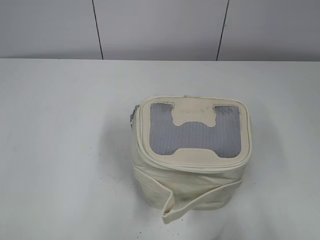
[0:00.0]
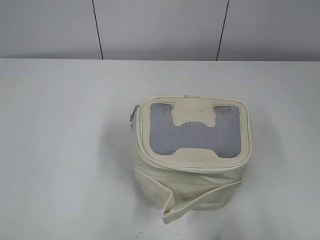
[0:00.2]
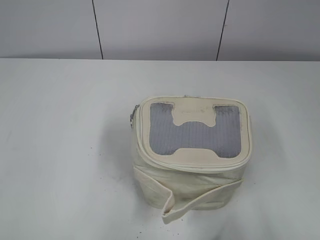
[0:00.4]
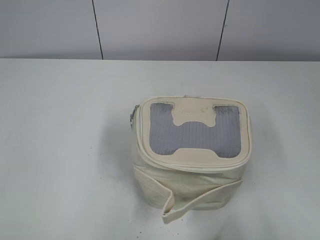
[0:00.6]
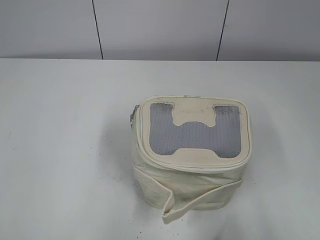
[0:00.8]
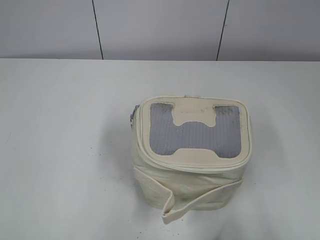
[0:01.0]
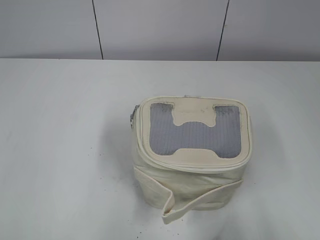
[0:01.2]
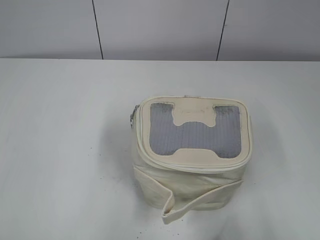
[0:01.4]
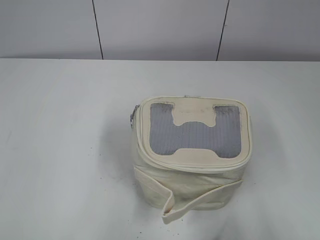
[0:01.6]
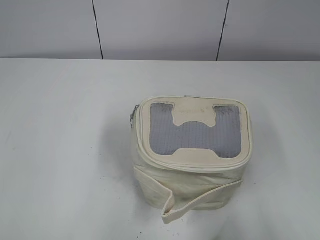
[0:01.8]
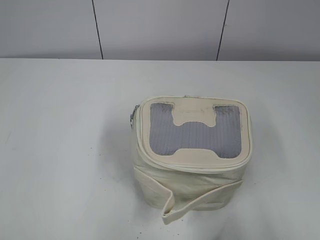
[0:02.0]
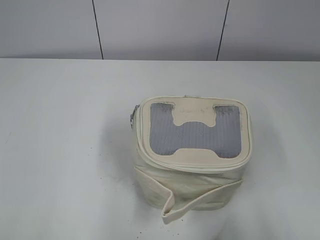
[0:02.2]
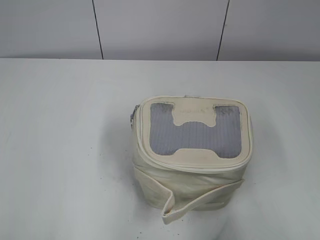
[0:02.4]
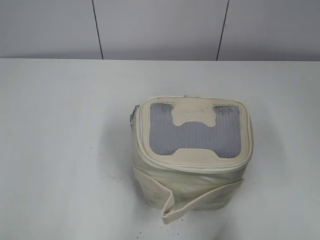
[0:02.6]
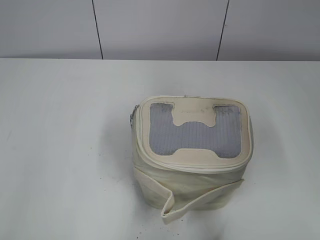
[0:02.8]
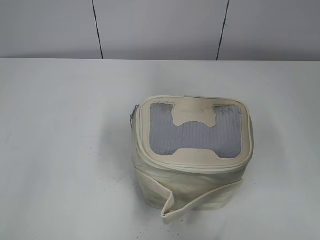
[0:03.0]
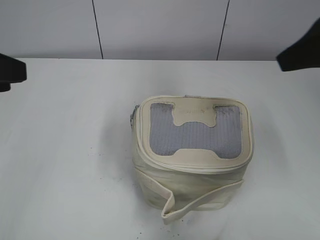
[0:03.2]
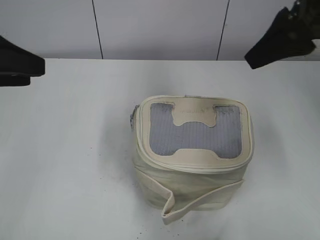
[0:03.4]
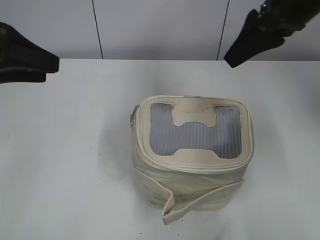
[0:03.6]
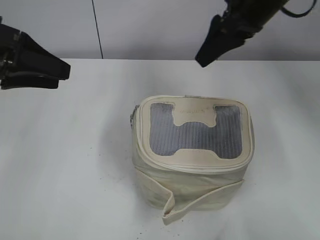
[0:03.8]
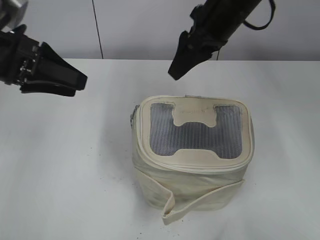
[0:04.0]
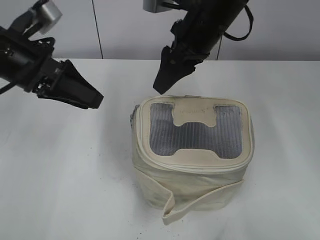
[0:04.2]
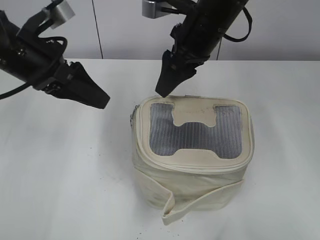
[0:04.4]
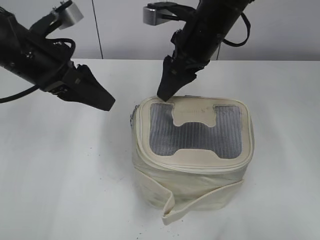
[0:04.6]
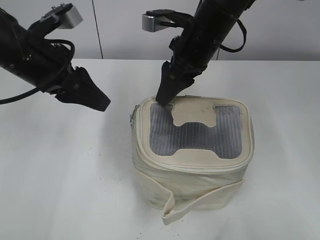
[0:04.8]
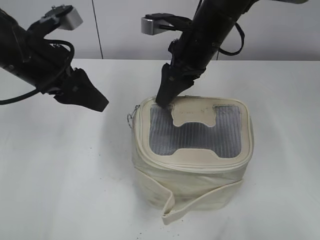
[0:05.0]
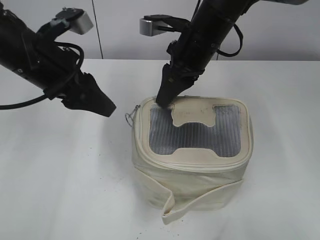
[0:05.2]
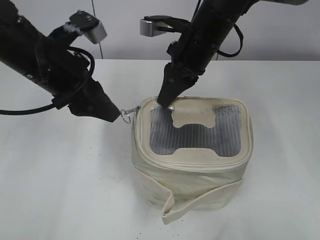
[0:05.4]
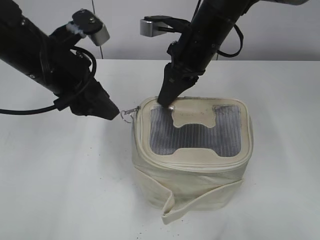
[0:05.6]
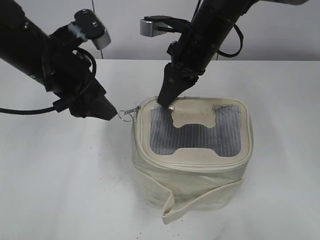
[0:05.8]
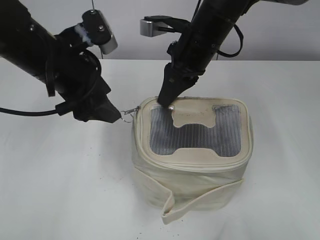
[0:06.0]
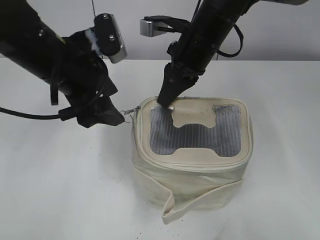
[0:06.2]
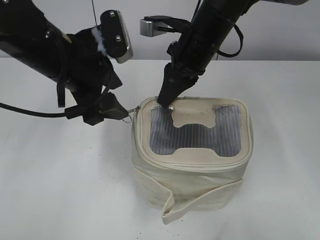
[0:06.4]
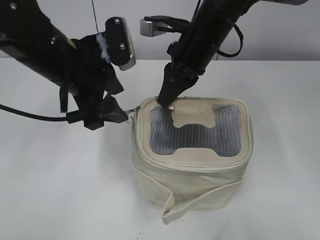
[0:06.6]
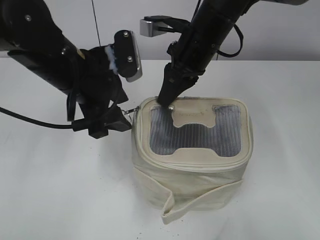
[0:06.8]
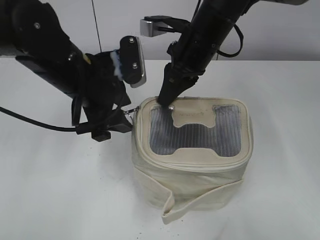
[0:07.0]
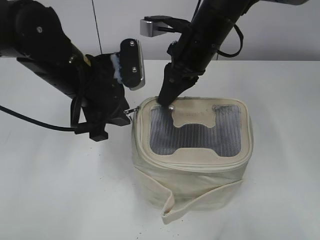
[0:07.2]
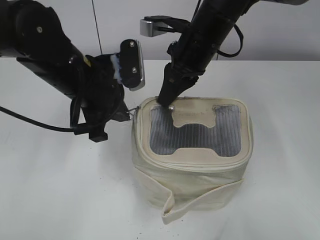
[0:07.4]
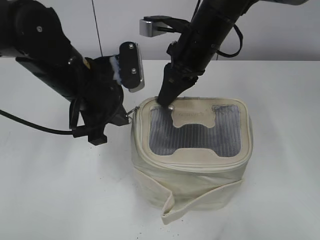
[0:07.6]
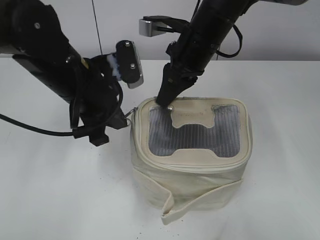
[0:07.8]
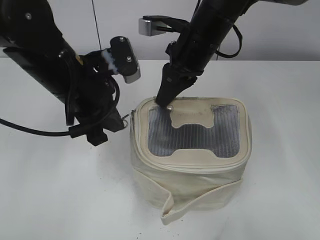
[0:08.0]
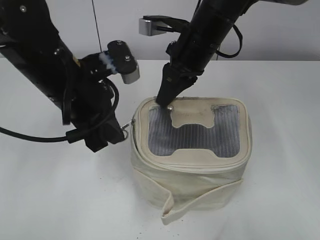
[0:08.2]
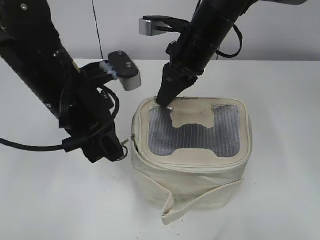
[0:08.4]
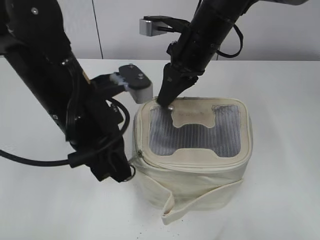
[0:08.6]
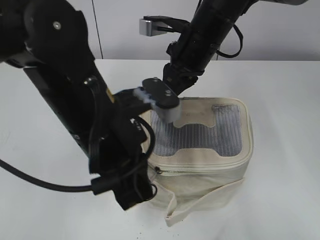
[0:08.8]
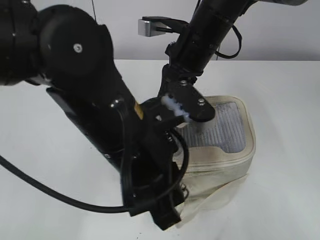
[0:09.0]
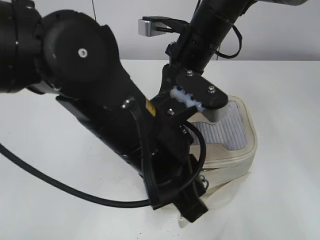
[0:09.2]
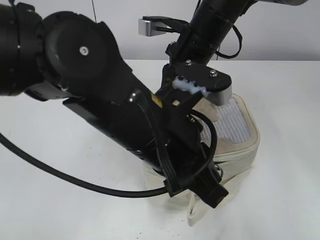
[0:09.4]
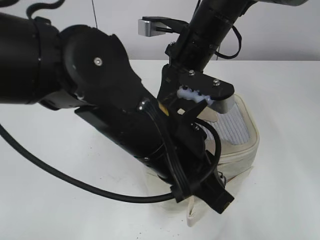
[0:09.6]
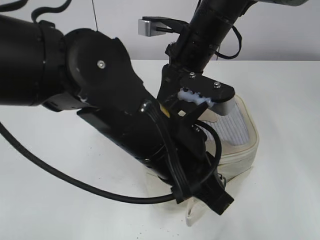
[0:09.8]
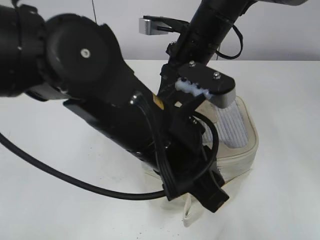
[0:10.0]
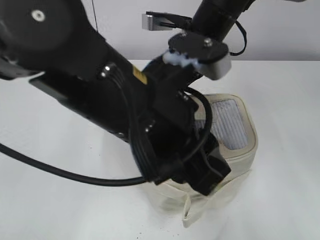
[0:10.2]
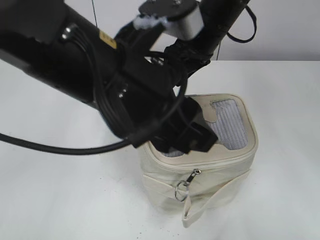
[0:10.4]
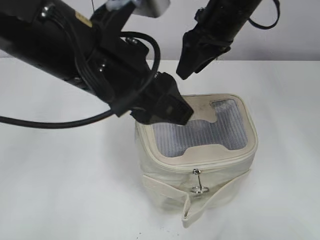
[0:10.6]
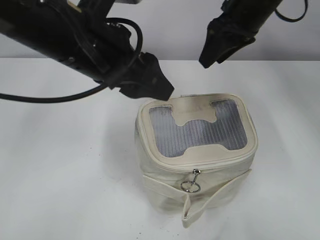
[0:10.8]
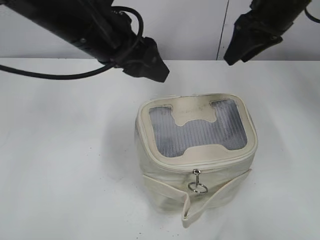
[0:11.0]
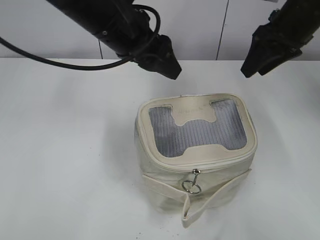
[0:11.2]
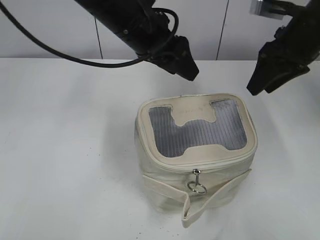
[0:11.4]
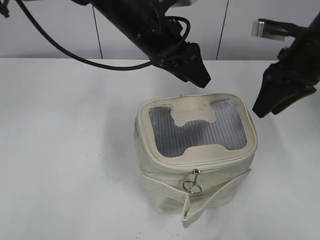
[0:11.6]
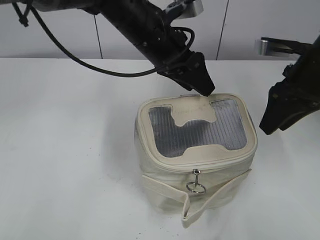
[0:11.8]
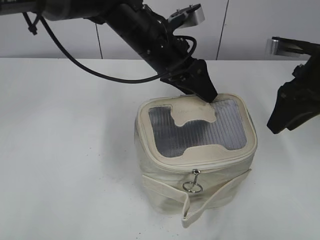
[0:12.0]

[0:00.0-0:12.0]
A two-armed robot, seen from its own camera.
Step, 0:00.0 to 0:09.8: Zip up the bag with your left hand.
0:01.6 to 0:03.0: Both grippers move forward, about 15 cm.
0:03.0 to 0:04.4: The right gripper goes about 30 cm forward, to the left and downward, while the left gripper heads forward, to the right and downward, covering approximately 20 cm.
0:04.4 to 0:06.0: The right gripper closes up.
0:06.0 to 0:07.6: The left gripper closes up.
0:07.6 to 0:09.0: The left gripper goes about 15 cm backward and to the right.
0:09.0 to 0:10.4: The left gripper moves upward, approximately 5 cm, and opens its fingers. The right gripper opens up.
0:10.4 to 0:12.0: The right gripper shifts approximately 15 cm to the right. The left gripper heads forward, covering approximately 20 cm.

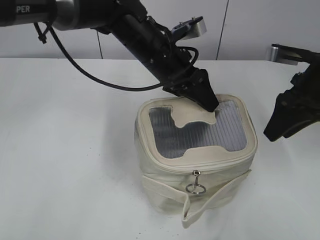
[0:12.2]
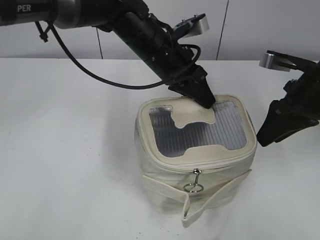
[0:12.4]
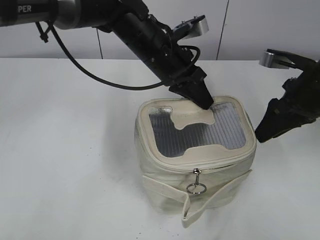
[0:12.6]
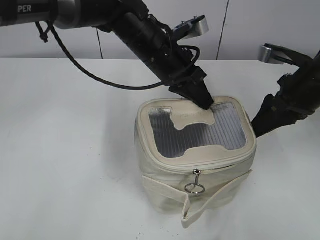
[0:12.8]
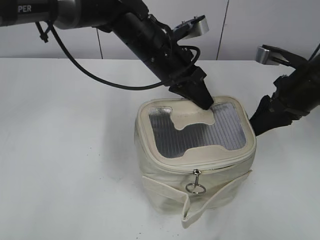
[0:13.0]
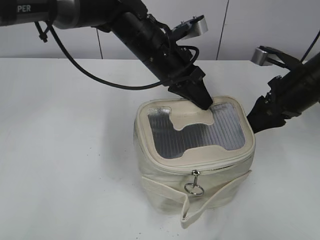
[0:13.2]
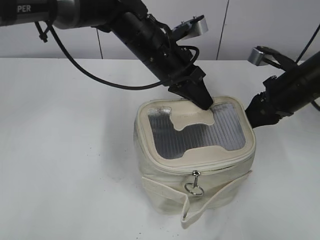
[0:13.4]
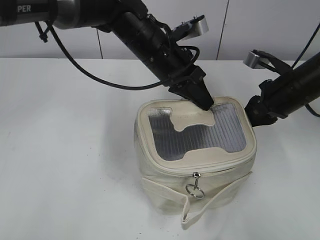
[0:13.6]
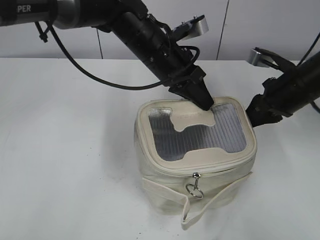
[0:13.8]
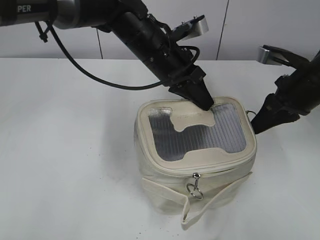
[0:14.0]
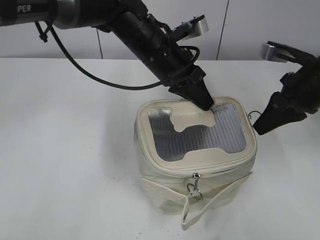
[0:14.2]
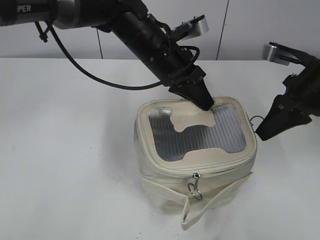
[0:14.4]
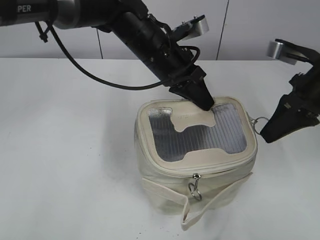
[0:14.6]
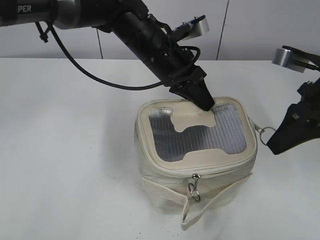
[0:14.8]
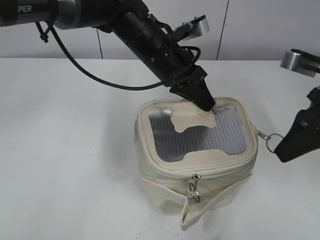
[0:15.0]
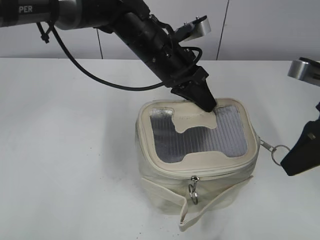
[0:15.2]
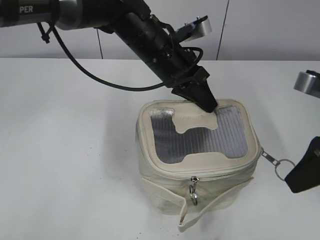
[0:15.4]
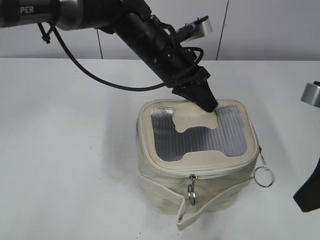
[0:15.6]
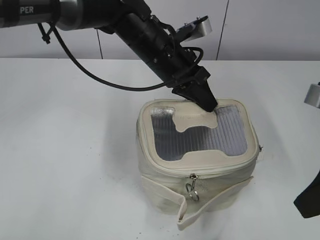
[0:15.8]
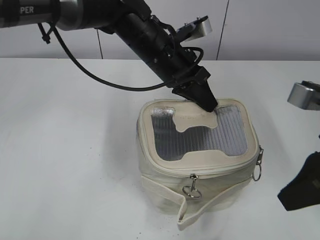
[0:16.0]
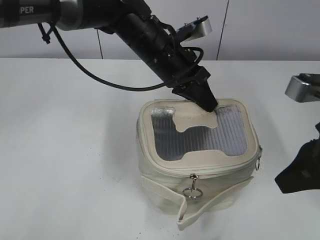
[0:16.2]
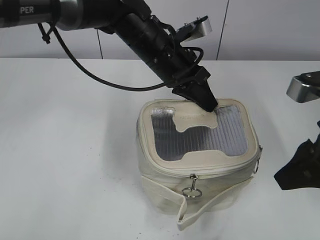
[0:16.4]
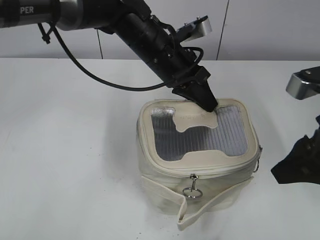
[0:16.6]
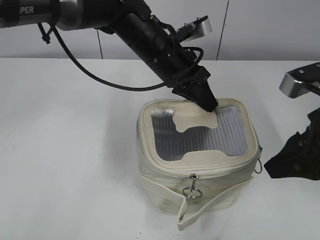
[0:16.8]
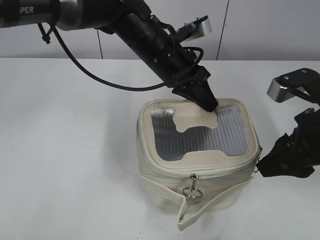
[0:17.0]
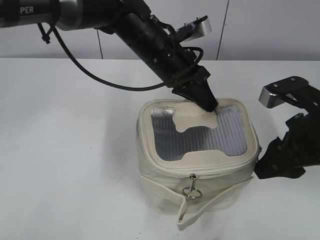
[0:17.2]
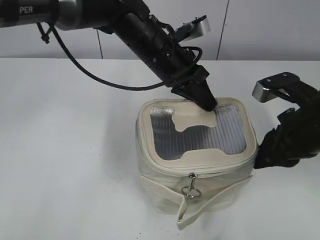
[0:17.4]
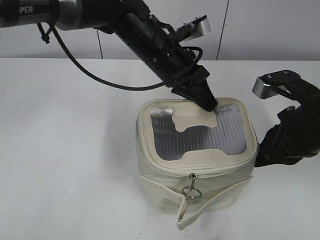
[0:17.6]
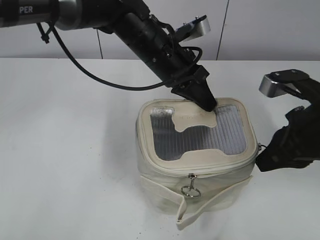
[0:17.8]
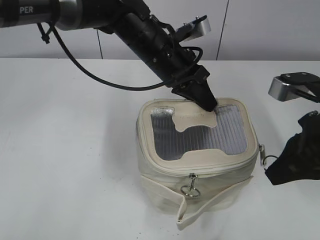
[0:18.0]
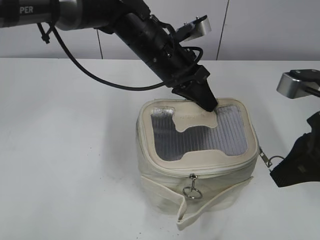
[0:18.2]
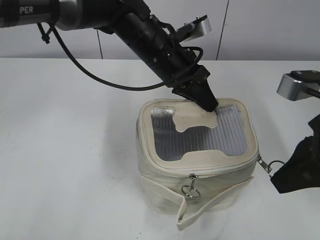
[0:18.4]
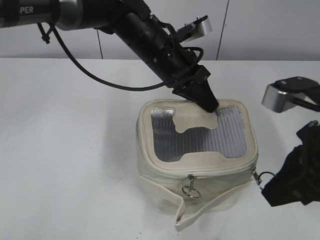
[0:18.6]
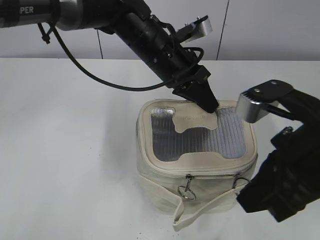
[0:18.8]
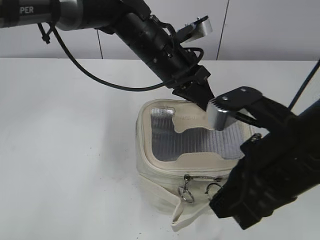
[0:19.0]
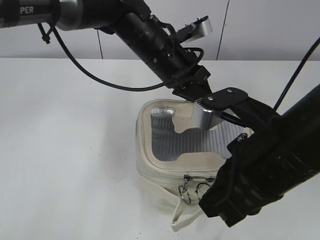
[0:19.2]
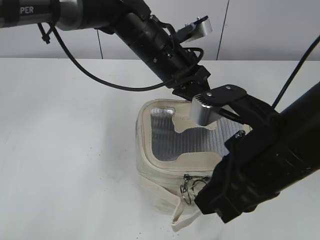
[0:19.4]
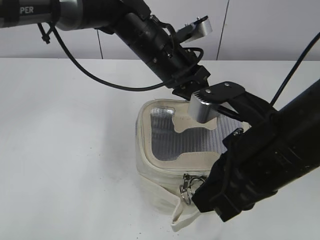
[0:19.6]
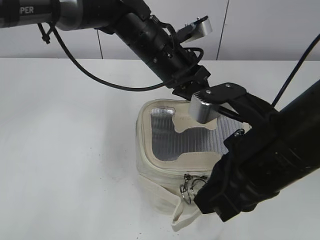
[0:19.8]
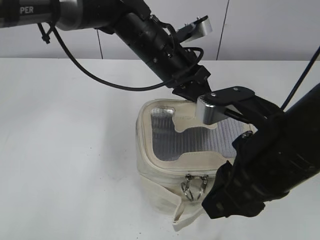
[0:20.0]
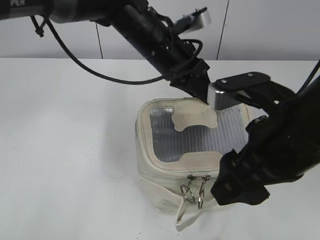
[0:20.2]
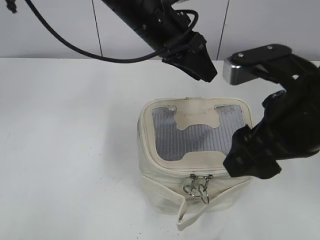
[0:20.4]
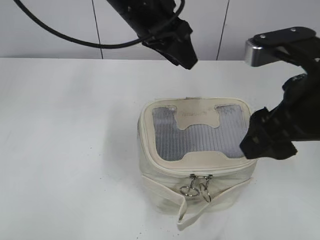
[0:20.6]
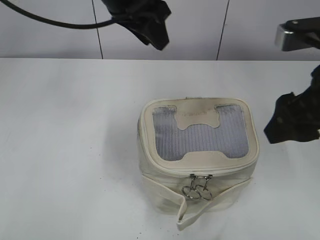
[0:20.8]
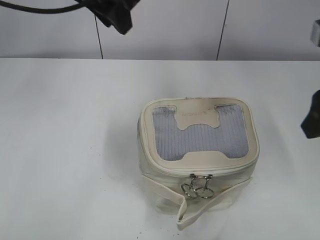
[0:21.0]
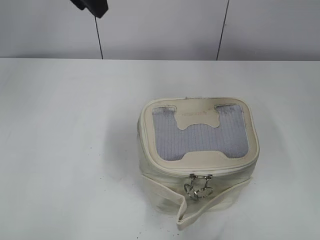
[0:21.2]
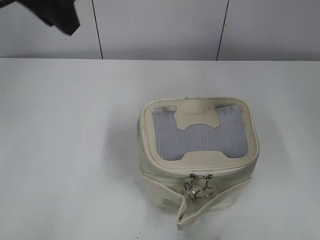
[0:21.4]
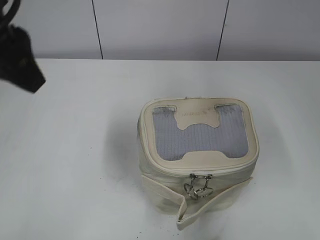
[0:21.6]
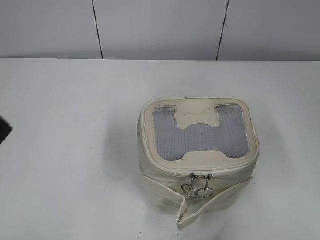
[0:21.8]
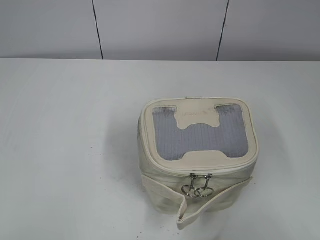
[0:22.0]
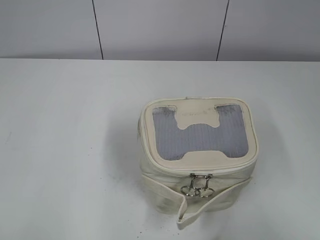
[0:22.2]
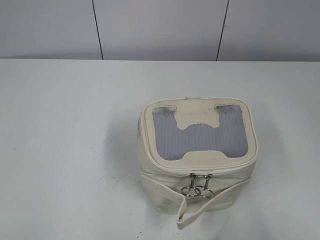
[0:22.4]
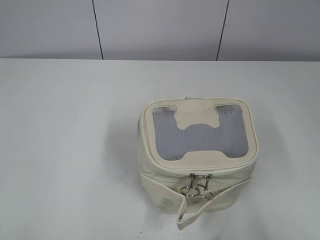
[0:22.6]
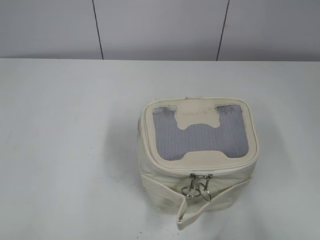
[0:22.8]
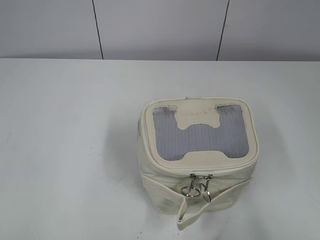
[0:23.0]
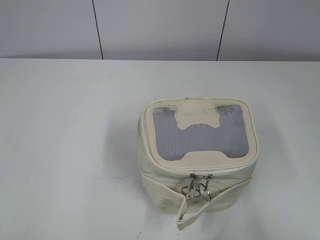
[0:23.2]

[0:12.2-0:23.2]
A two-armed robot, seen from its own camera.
Step, 0:12.2 to 0:19.8: Pull open the zipper with your right hand.
Step, 0:20.0 to 0:20.2: Hold the bag with your left hand.
0:12.2 to 0:13.8: The right gripper shifts by some 5 cm, and closes, while the left gripper closes its fingers.
0:13.8 to 0:15.4: The right gripper shifts approximately 15 cm backward and upward.
0:15.4 to 0:17.0: The right gripper opens.
0:17.0 to 0:18.4: The right gripper closes up.
0:18.4 to 0:20.0: The right gripper goes some 10 cm to the left, and opens.
0:20.0 to 0:21.6: The right gripper shifts about 20 cm to the right and upward, and opens, while the left gripper shifts some 25 cm to the left, upward and backward, and opens its fingers.
0:21.6 to 0:23.2: The left gripper travels backward and to the left by approximately 25 cm. Meanwhile the right gripper shifts roughly 15 cm backward and downward.
